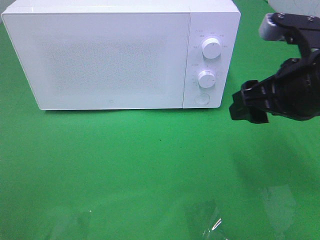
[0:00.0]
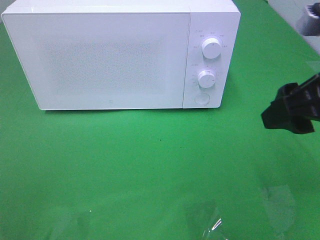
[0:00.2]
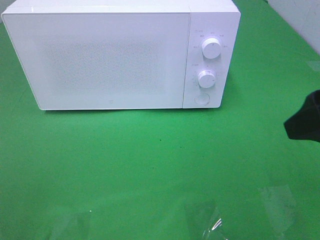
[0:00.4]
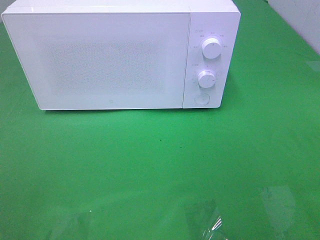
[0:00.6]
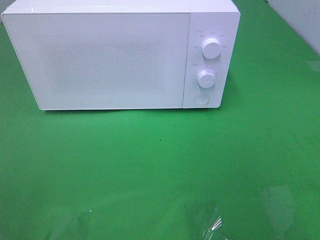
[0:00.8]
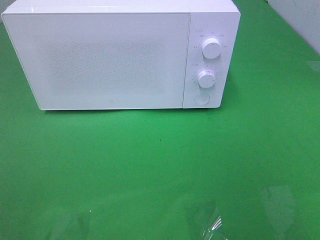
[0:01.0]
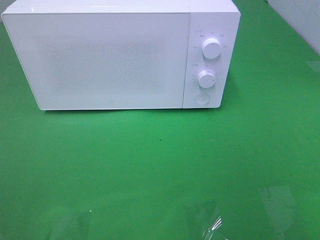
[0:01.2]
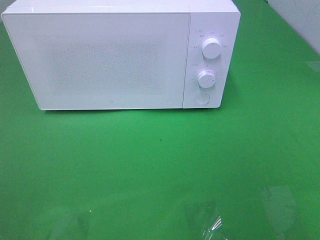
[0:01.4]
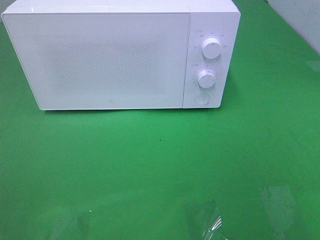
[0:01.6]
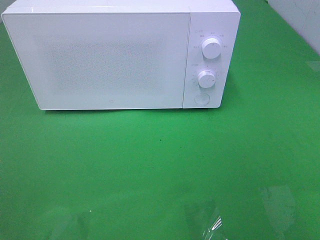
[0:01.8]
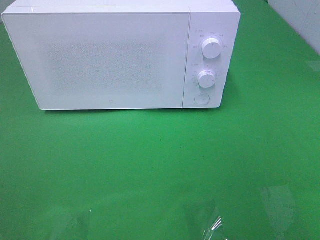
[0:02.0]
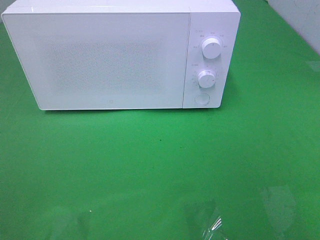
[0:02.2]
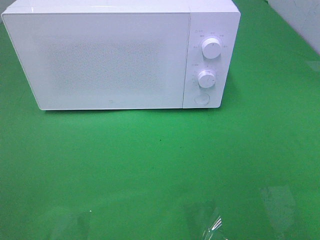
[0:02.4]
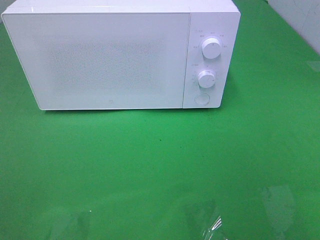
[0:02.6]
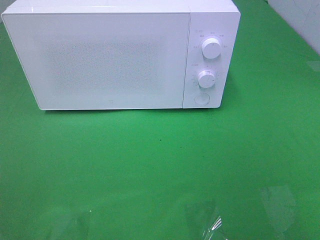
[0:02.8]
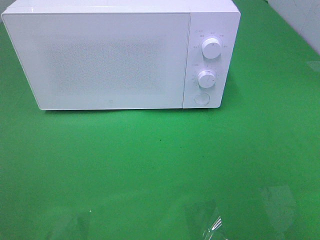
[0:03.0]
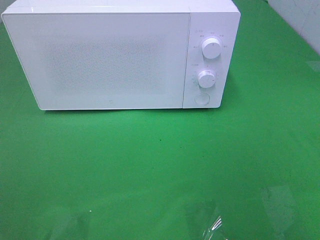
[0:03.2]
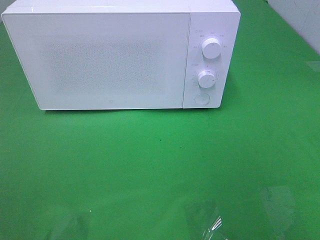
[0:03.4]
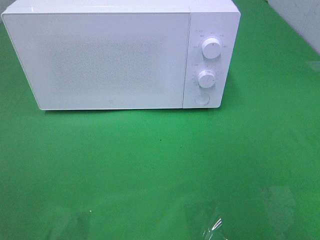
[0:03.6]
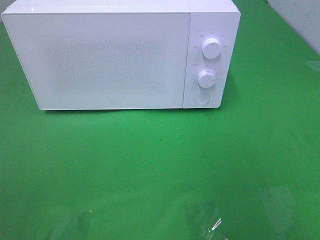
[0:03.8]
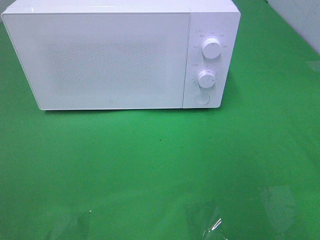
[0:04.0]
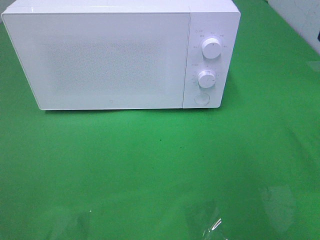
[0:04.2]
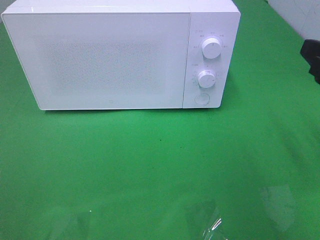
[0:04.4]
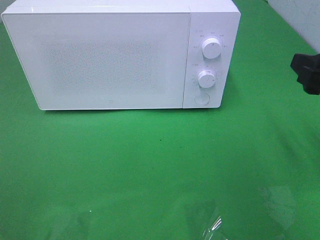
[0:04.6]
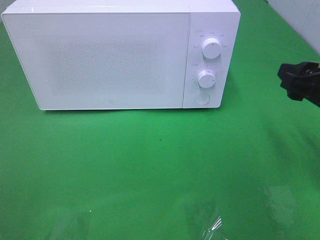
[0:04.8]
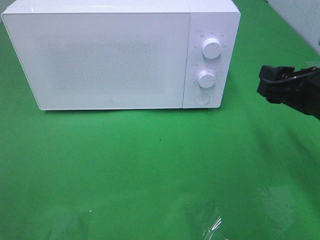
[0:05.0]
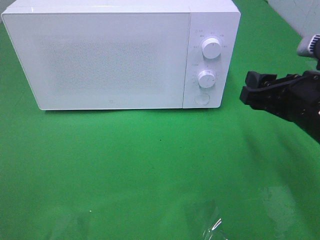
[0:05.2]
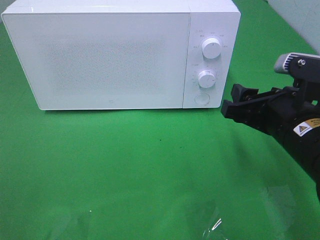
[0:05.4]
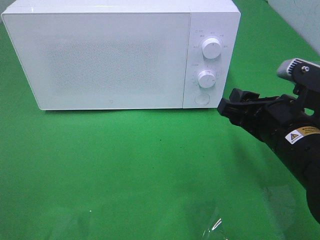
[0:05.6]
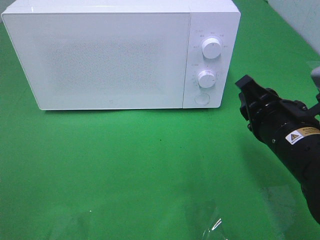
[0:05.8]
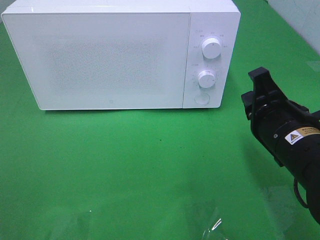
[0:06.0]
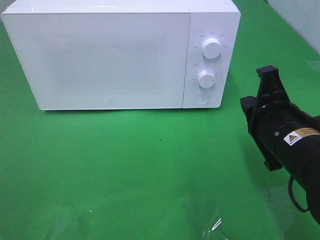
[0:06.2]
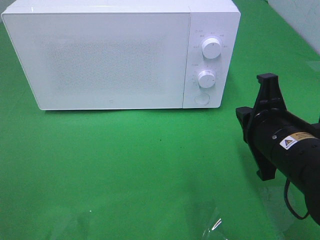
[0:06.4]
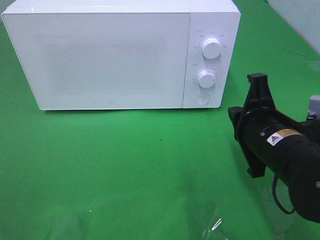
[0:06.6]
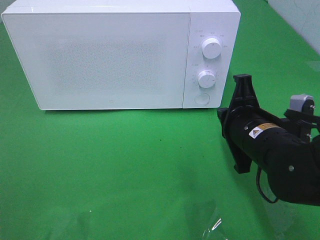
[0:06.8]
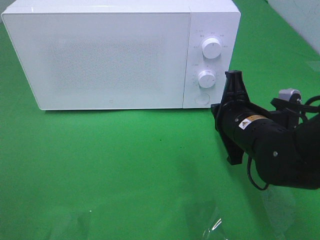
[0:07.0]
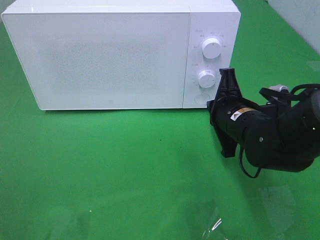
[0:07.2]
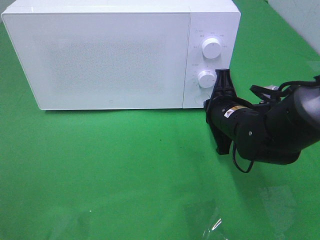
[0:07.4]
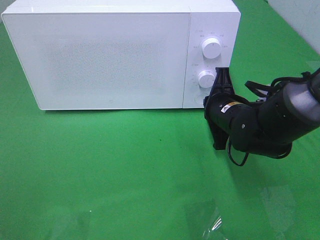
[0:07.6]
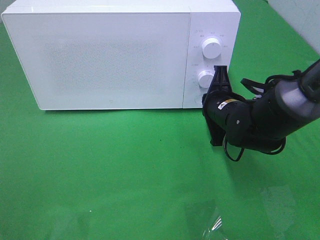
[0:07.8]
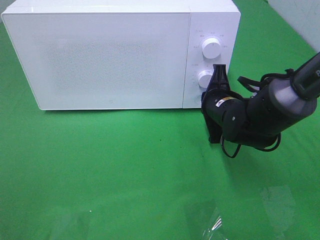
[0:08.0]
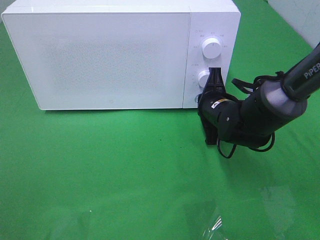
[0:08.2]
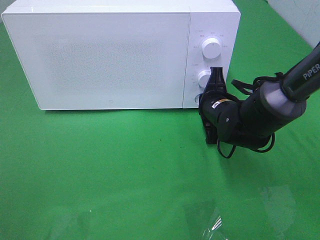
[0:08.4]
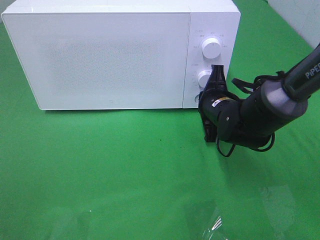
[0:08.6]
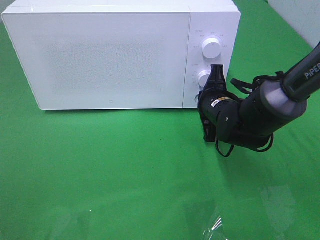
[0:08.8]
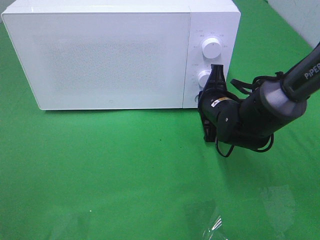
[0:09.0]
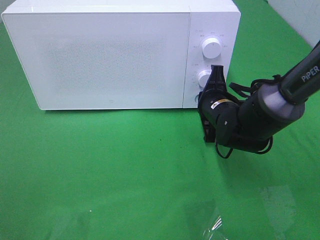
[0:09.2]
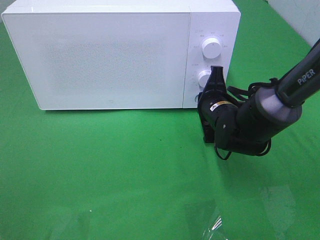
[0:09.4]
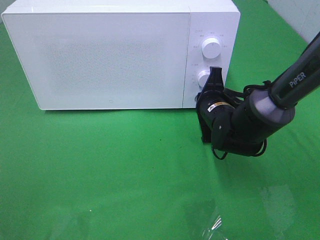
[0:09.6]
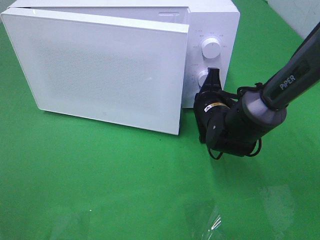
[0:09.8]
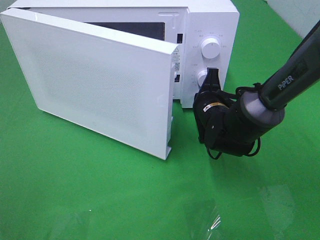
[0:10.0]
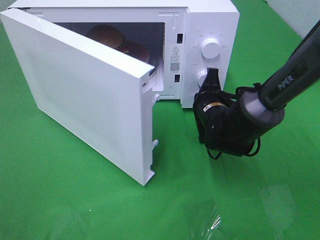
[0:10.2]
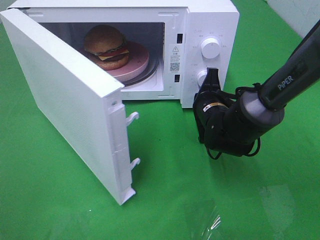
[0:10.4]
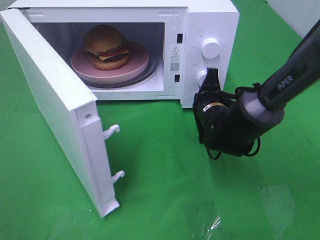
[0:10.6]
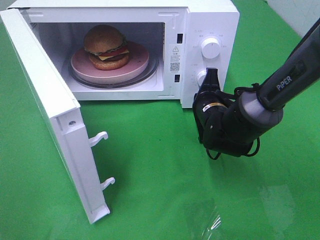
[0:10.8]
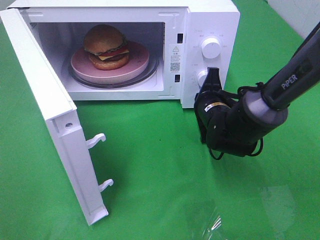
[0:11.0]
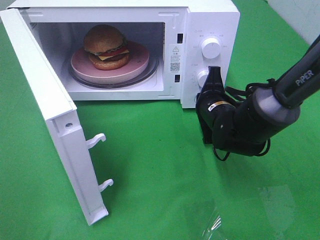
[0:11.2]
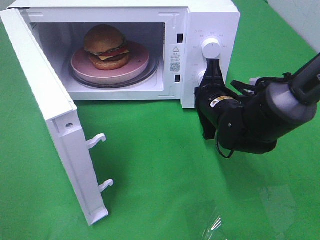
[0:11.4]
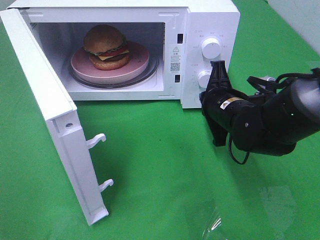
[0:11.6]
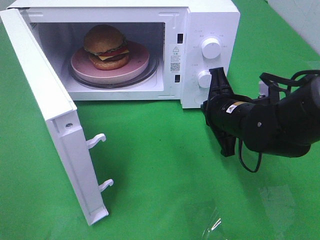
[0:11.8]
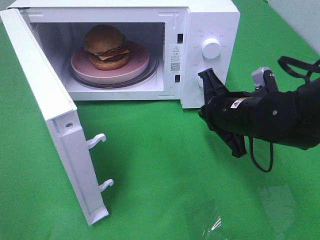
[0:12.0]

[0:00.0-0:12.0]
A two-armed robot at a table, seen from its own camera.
Task of the whole recording: Heat the burger.
Step, 0:00.0 to 0:11.6: Right hand: press the switch.
0:00.0 to 0:01.6: The right gripper goes approximately 25 cm backward and to the right.
0:03.0 to 0:04.4: The right gripper goes about 20 cm forward and downward.
0:04.4 to 0:06.0: The right gripper travels to the left and downward by some 10 cm, and closes.
0:06.0 to 0:07.6: The right gripper is displaced forward and downward by roughly 15 cm.
0:07.6 to 0:09.0: There are only small adjustments of the grippers.
0:10.4 to 0:12.0: The right gripper is displaced backward and upward by approximately 10 cm.

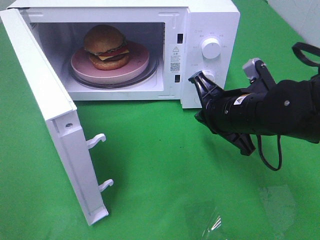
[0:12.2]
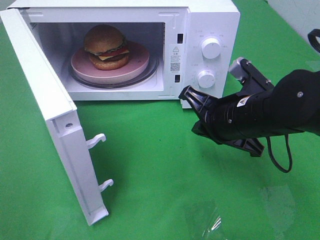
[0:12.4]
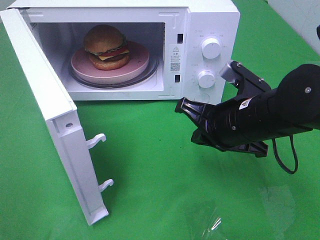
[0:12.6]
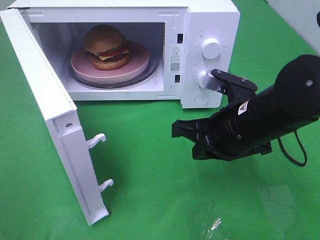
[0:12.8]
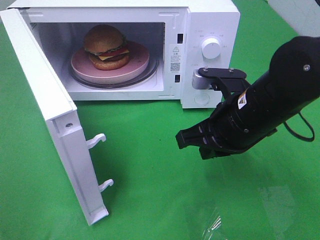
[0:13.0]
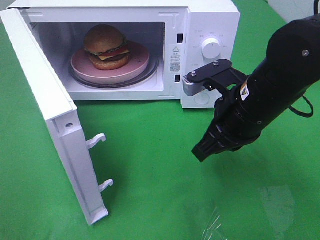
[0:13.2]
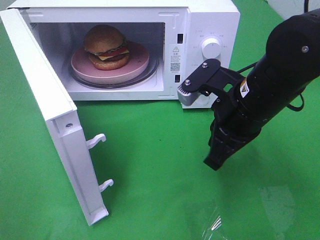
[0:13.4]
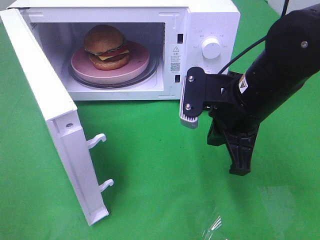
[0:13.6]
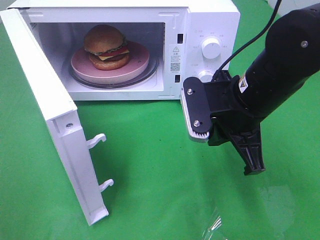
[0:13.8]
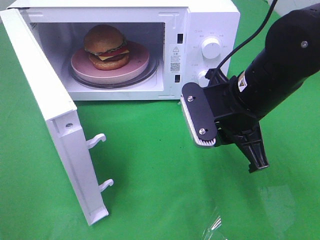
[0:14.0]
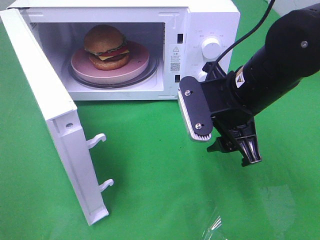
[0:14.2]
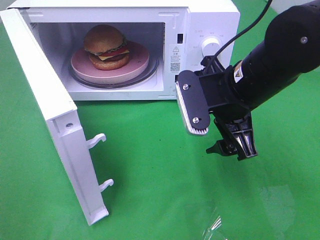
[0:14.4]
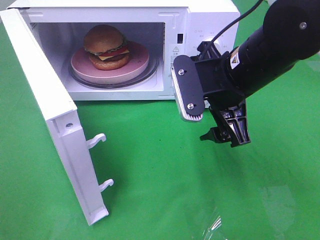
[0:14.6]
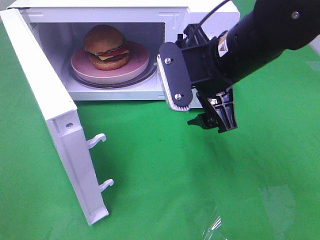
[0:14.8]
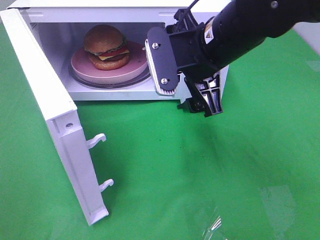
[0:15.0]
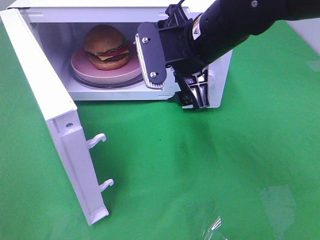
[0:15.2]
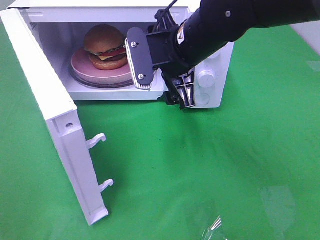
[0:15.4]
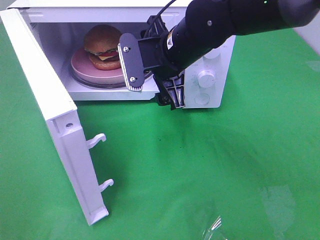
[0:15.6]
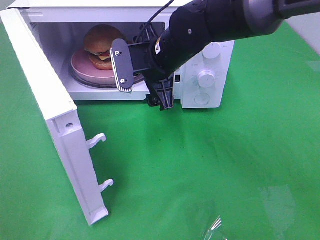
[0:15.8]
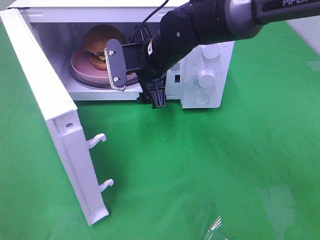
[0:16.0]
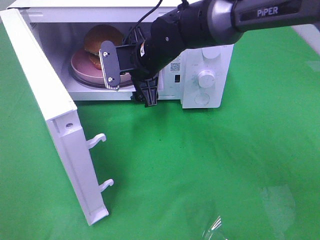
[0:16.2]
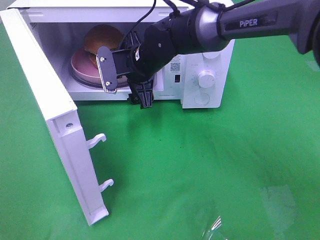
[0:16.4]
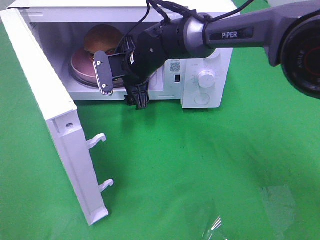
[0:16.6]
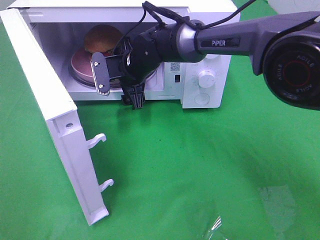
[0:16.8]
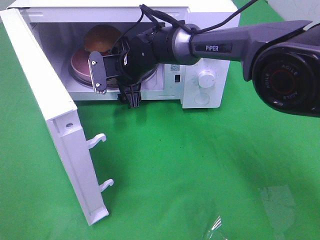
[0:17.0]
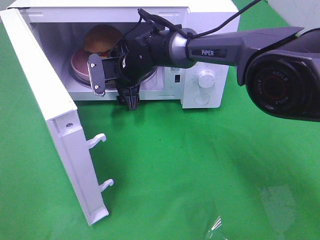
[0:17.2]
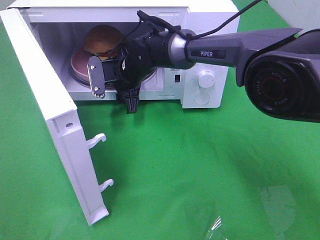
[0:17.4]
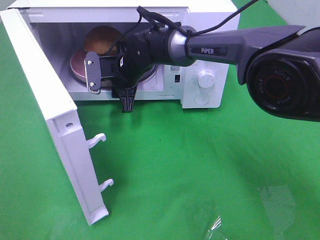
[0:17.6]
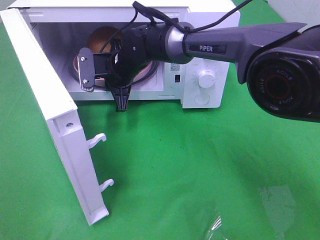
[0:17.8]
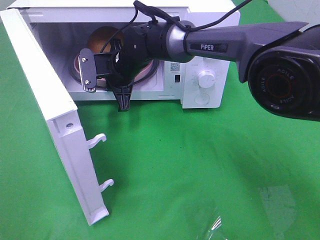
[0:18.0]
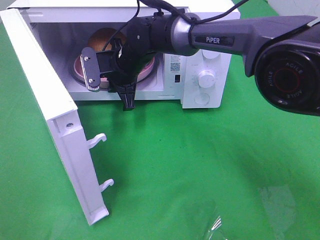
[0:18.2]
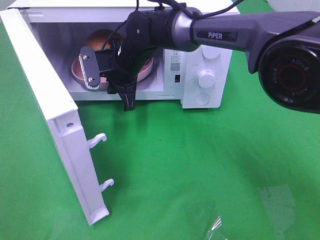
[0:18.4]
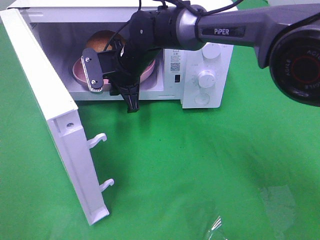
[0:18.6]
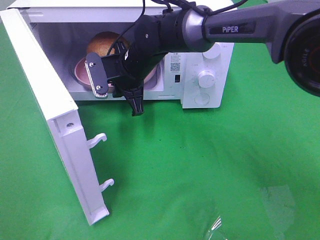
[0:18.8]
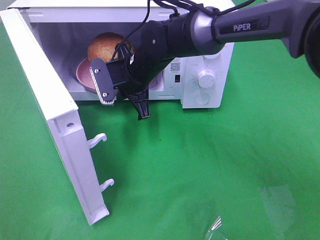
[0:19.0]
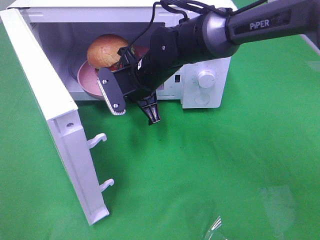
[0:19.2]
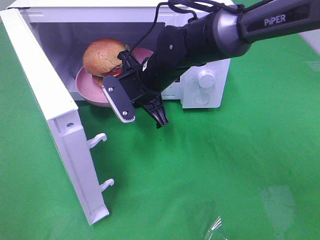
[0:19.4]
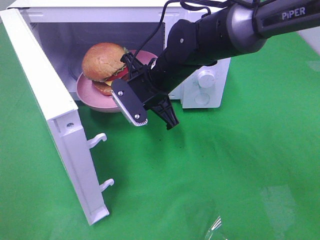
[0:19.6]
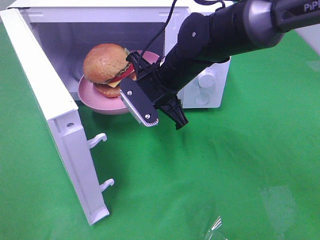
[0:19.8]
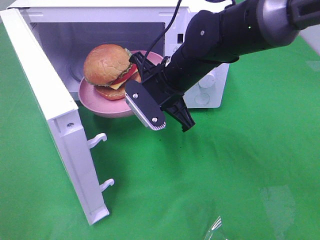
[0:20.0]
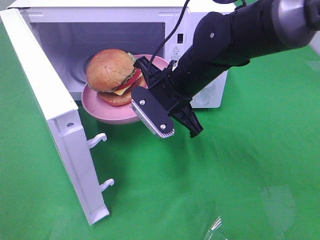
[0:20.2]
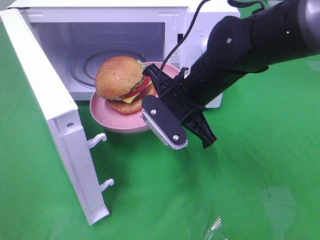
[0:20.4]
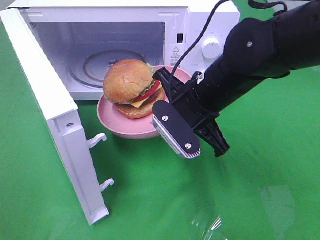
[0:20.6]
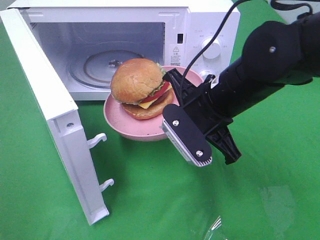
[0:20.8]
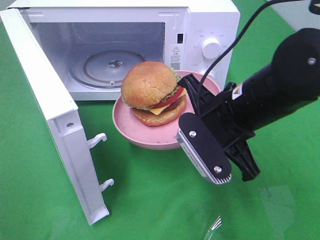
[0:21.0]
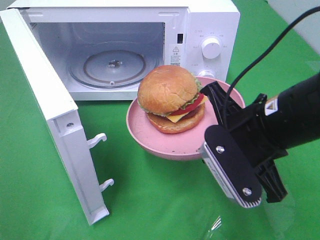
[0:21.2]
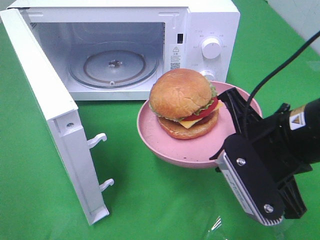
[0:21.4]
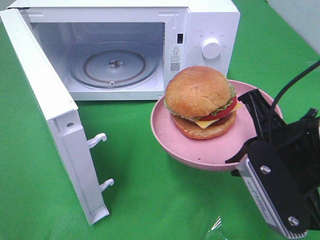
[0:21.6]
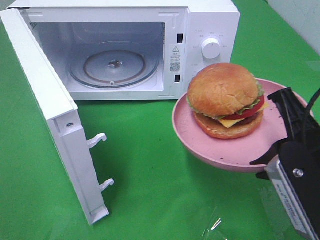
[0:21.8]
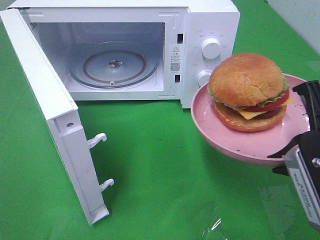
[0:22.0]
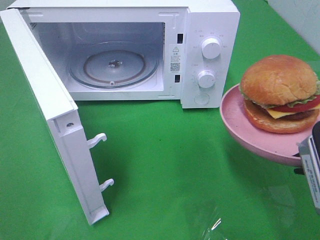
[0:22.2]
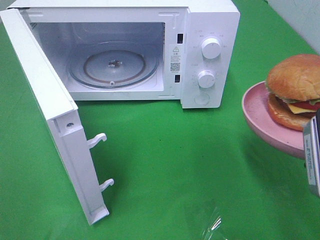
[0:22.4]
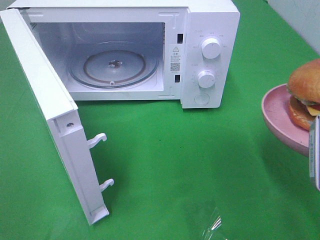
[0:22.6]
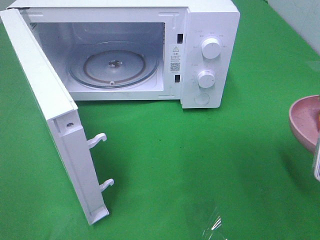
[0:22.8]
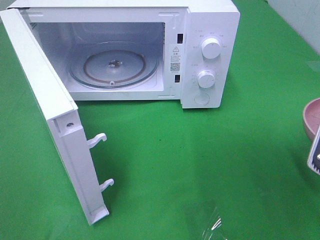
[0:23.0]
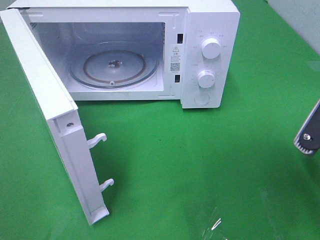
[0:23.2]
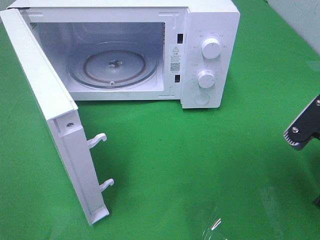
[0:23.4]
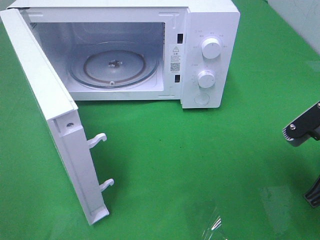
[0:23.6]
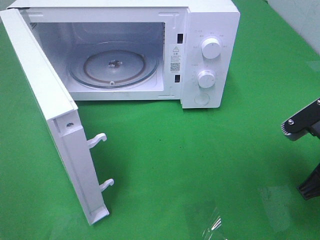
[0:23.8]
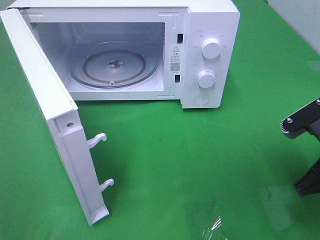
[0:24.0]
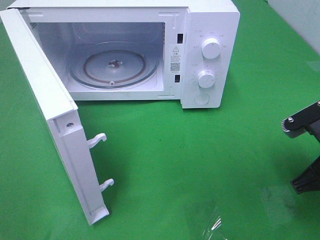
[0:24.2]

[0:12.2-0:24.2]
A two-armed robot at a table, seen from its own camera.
Task of the whole recording: Heat the burger.
Step, 0:12.2 to 0:18.0: Right hand: grab the plate with the hamburger.
0:12.2 to 0:13.8: The right gripper changes place by some 5 cm.
0:13.8 to 0:15.2: The right gripper is displaced to the left and forward by approximately 10 cm, and opens up.
0:15.2 to 0:16.6: The right gripper is displaced forward, downward and to the left by about 20 cm.
0:16.6 to 0:18.2: The right gripper closes up.
0:18.2 to 0:19.8: The right gripper heads to the right and backward, covering about 10 cm.
0:19.8 to 0:21.2: The right gripper travels backward and to the right by about 20 cm.
0:21.2 to 0:22.6: The right gripper is displaced to the right and backward by about 10 cm.
0:22.6 to 0:24.2: The right gripper is displaced downward and forward by some 10 cm.
